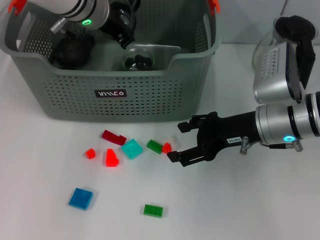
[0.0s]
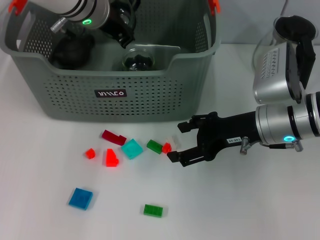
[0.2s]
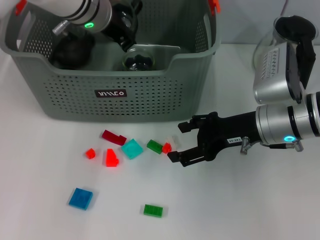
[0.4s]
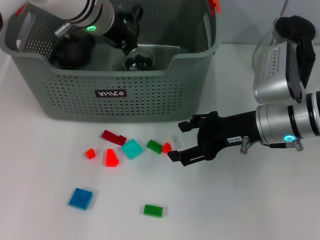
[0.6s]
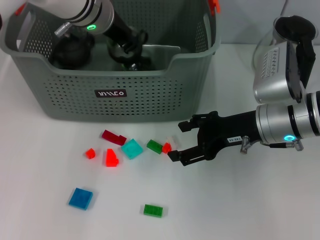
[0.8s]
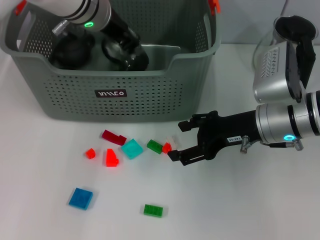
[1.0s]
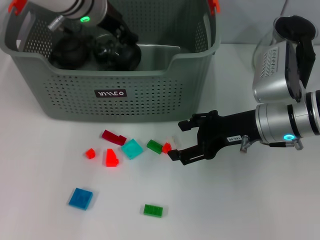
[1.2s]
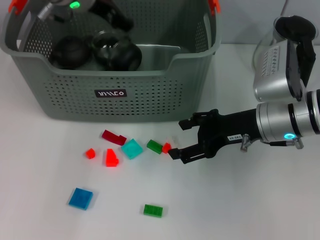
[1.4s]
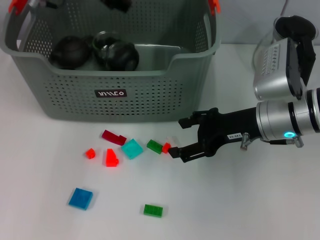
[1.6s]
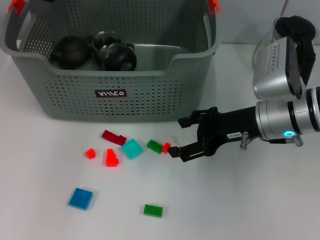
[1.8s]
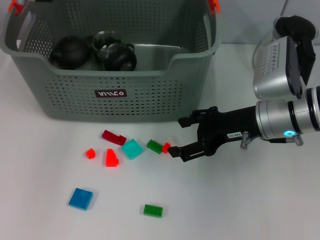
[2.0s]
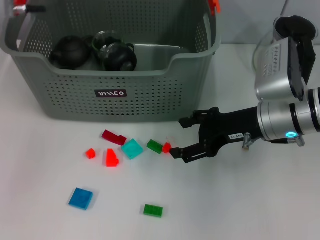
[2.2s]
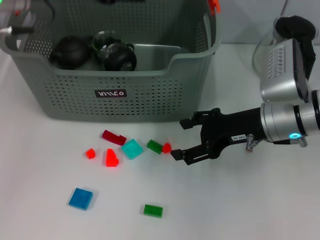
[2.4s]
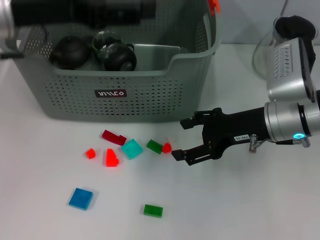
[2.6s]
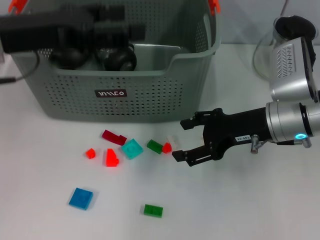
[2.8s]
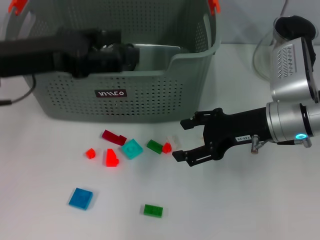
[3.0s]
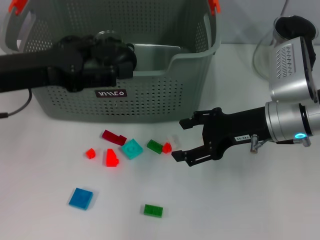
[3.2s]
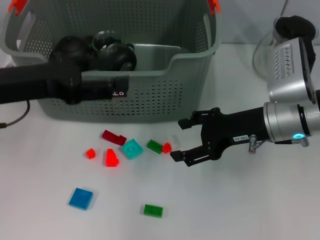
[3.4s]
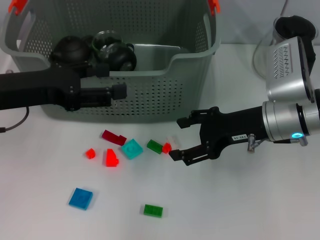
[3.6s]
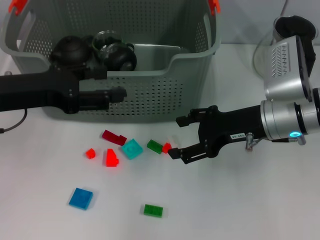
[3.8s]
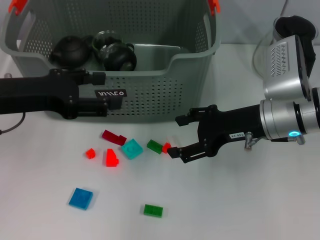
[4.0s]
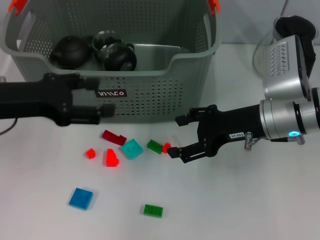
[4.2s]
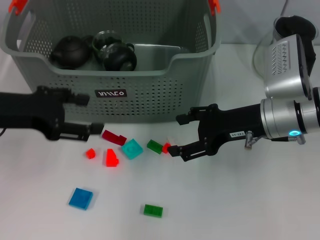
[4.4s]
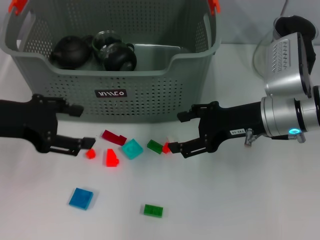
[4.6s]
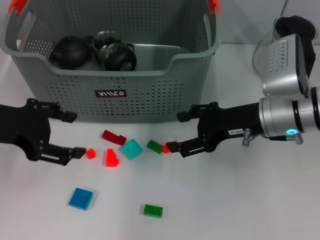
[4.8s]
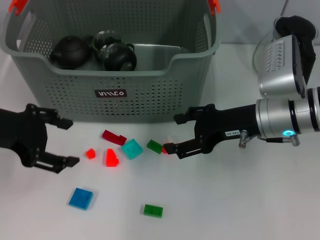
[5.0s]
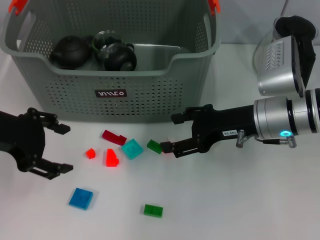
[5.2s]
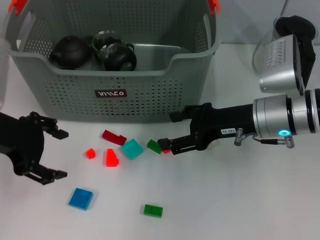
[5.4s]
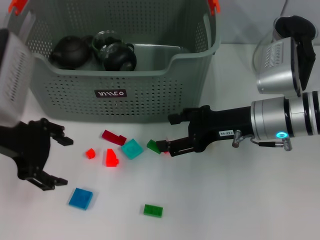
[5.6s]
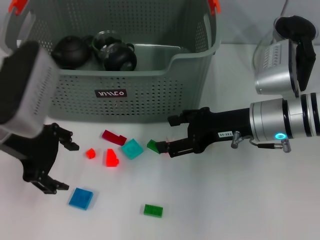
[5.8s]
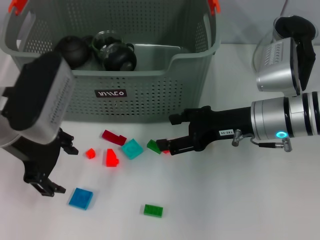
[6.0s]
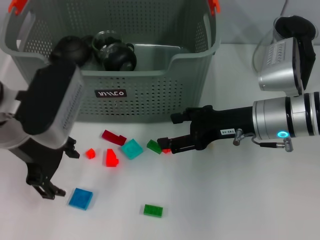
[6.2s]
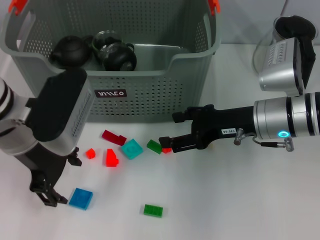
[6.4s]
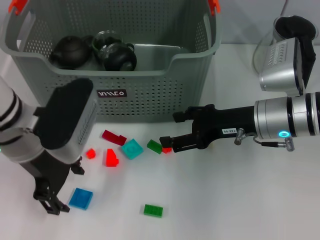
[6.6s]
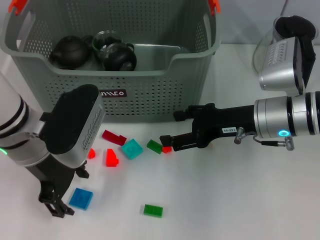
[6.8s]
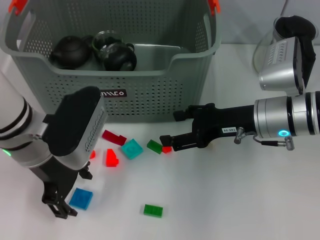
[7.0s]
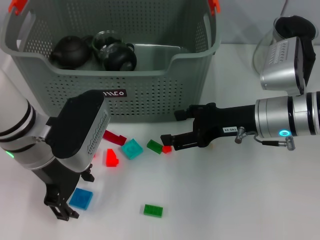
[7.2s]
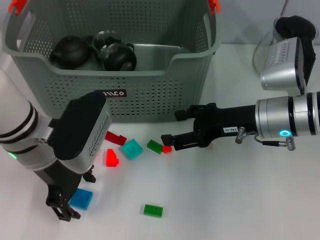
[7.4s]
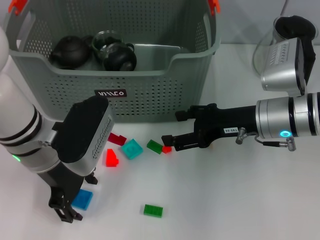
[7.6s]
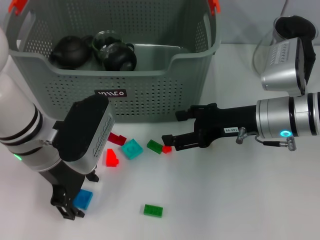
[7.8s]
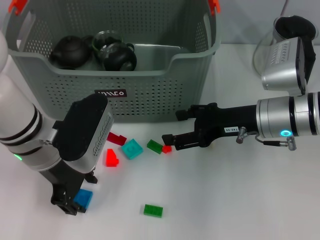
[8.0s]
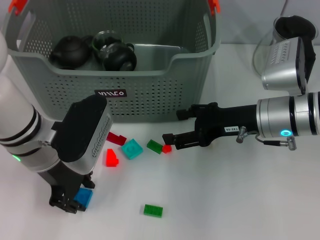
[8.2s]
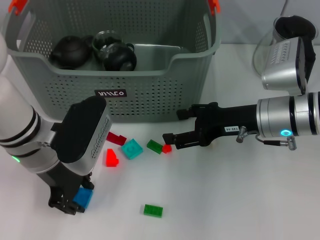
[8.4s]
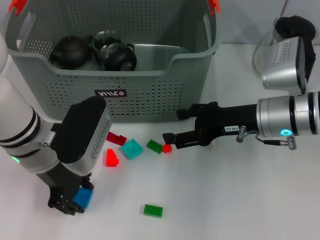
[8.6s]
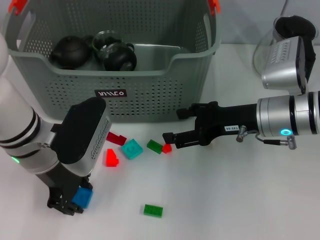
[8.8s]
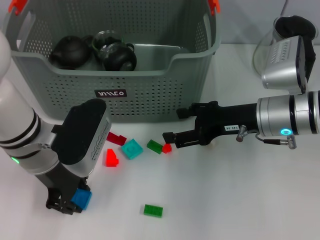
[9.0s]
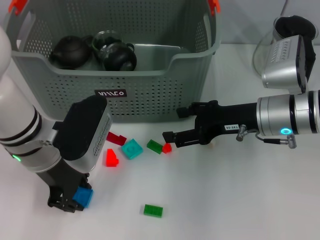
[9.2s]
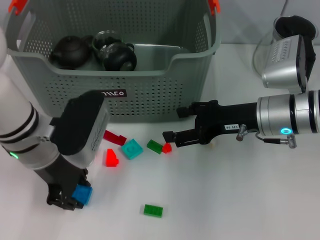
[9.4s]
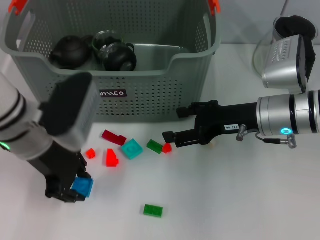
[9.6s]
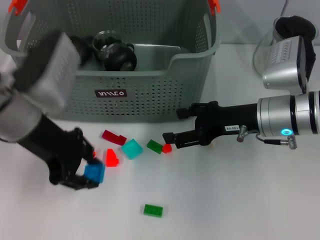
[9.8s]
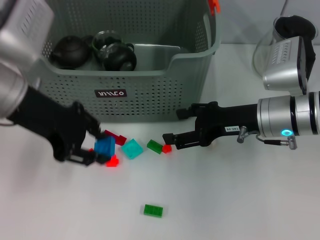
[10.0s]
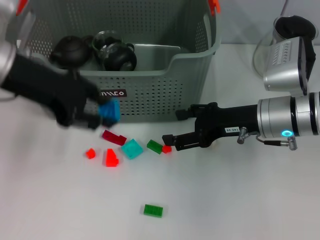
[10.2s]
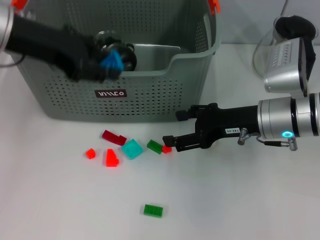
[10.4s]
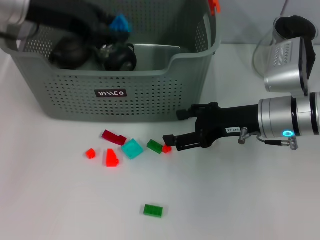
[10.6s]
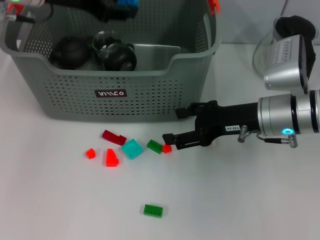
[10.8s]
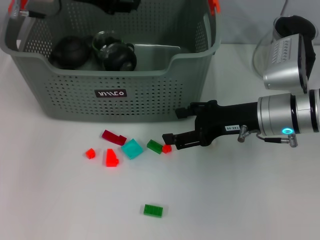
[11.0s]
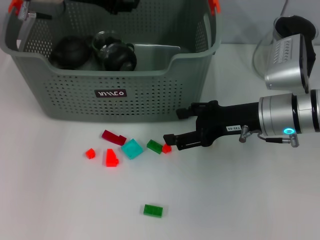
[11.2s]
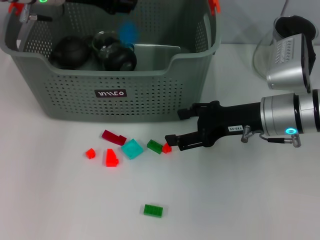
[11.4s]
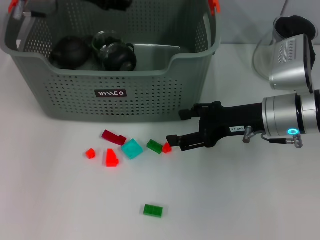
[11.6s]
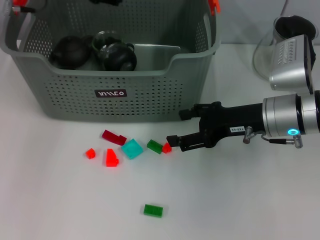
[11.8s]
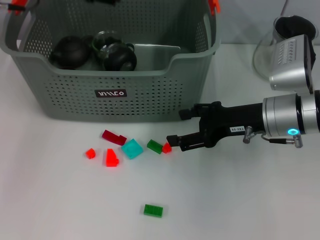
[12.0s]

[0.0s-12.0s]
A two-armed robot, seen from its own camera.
Task of the whole recording: pick up the teacup on the table and place it into the storage bin, pick up the block on the table and place it into the storage bin.
Step, 1.2s to 9.0s: Grasp the dark blue block with left gripper.
Step, 9.2s to 11.4s: Place the dark blue block in the storage box with left gripper.
0.0s to 1.6s: The left gripper ends up approximately 5 cm from where it was, and opens its fingers.
1.6s to 3.0s: The left gripper is displaced backward and to the left by some 15 cm.
3.0s to 4.4s: The left gripper shifts by roughly 5 cm.
4.4s to 6.0s: The left gripper travels to the right by approximately 5 cm.
6.0s to 7.6s: The left gripper goes roughly 5 cm downward.
7.6s to 9.0s: The left gripper closes its fingers.
9.0s to 10.4s: The left gripper travels upward and to the left by roughly 15 cm.
10.4s to 12.0s: The left gripper is displaced forward by roughly 5 cm, and opens its fingers.

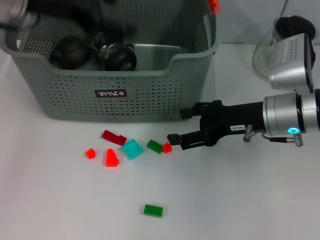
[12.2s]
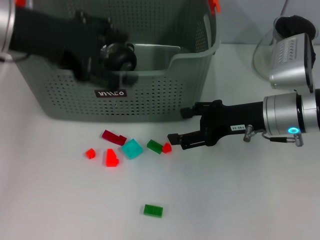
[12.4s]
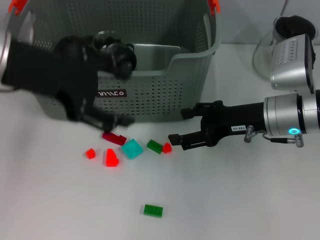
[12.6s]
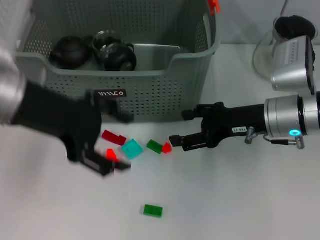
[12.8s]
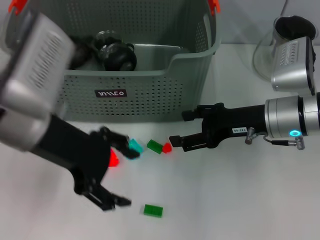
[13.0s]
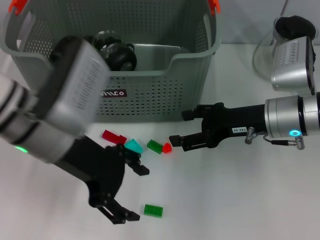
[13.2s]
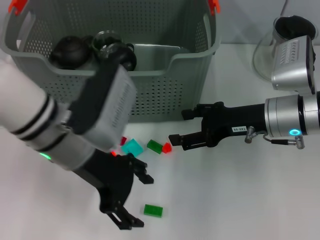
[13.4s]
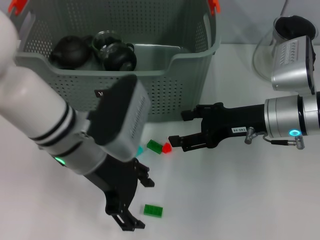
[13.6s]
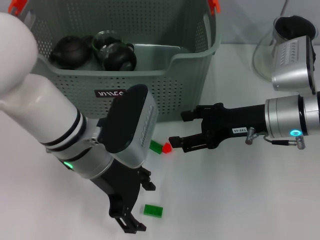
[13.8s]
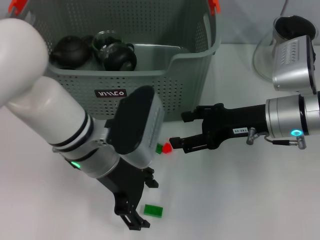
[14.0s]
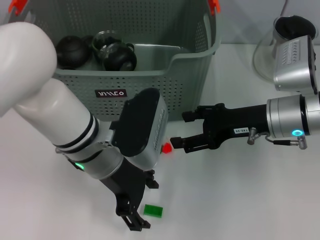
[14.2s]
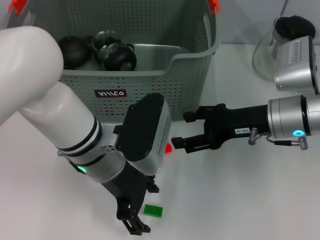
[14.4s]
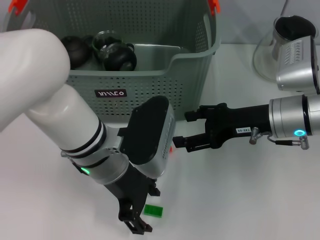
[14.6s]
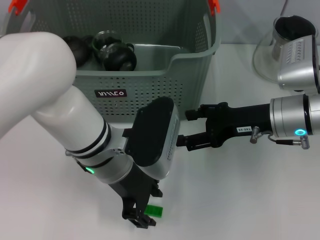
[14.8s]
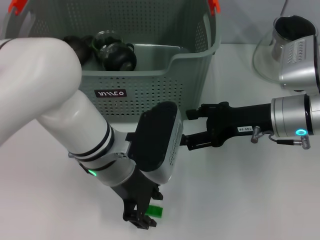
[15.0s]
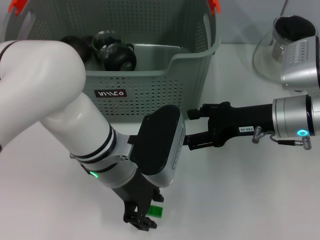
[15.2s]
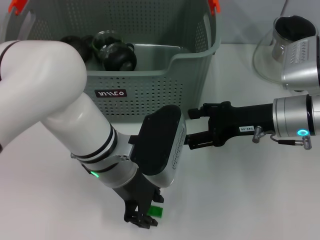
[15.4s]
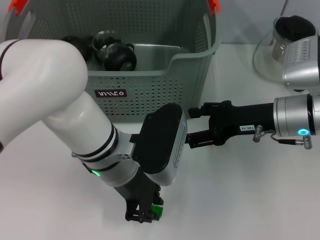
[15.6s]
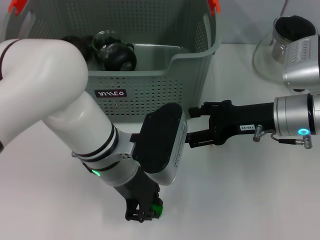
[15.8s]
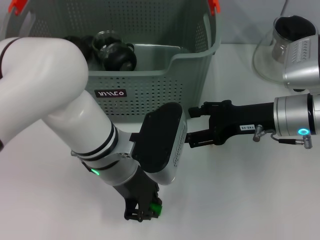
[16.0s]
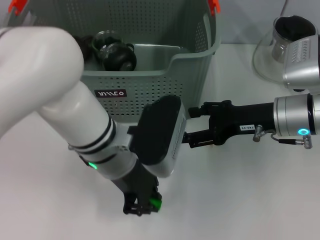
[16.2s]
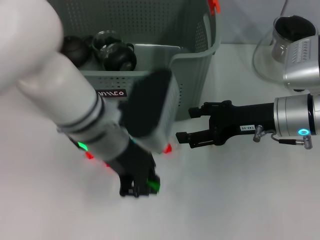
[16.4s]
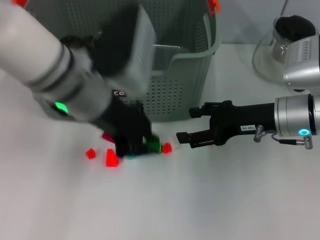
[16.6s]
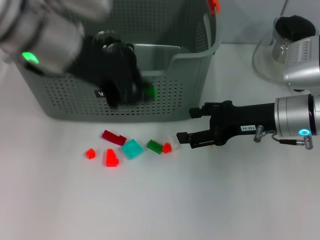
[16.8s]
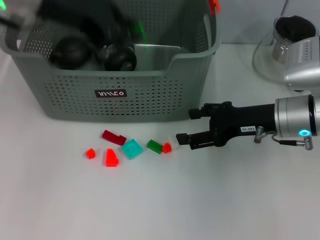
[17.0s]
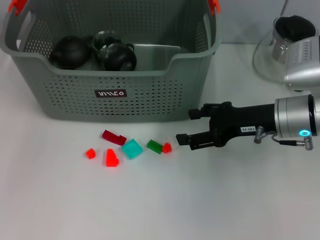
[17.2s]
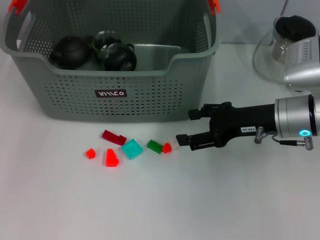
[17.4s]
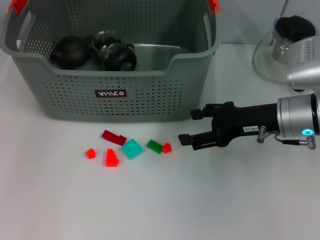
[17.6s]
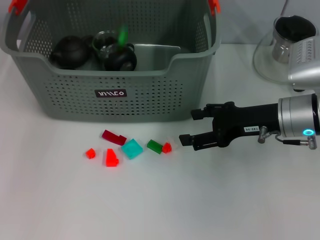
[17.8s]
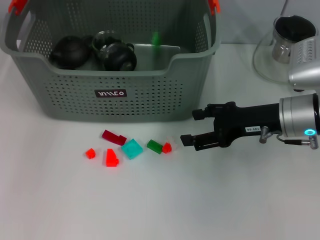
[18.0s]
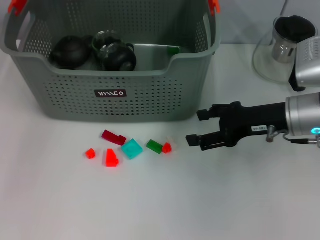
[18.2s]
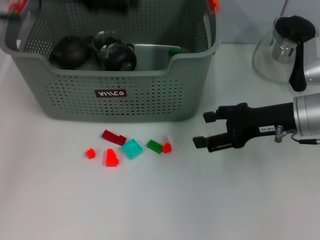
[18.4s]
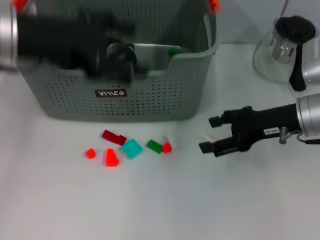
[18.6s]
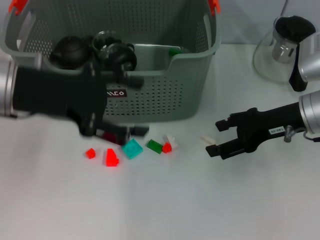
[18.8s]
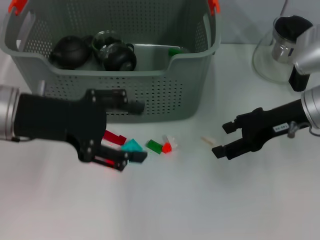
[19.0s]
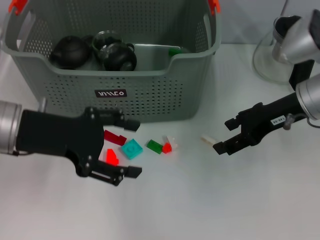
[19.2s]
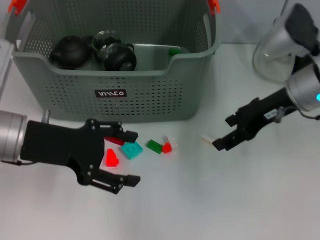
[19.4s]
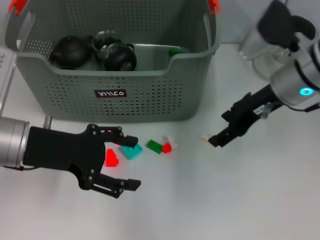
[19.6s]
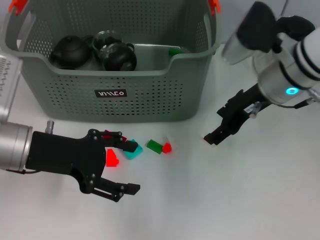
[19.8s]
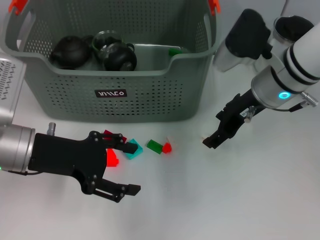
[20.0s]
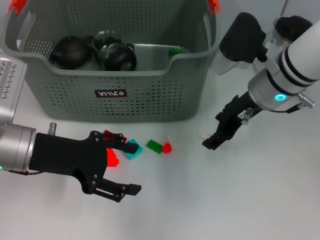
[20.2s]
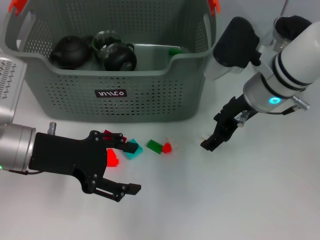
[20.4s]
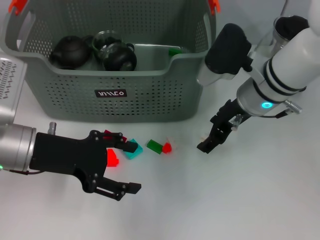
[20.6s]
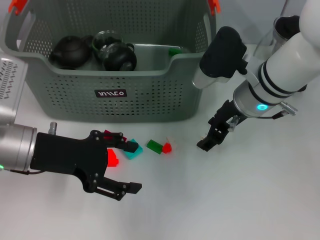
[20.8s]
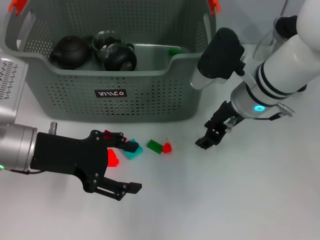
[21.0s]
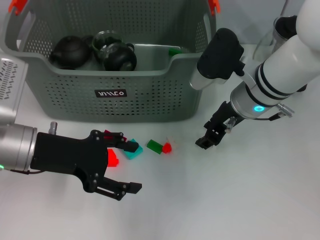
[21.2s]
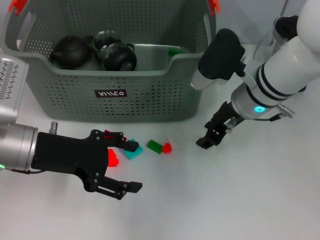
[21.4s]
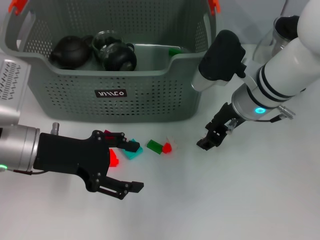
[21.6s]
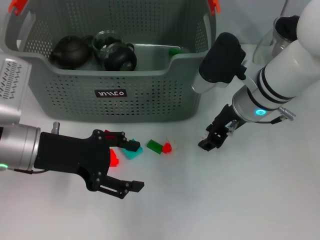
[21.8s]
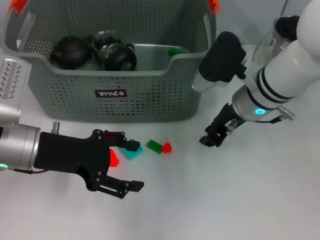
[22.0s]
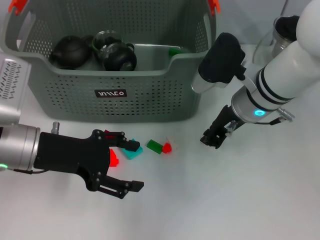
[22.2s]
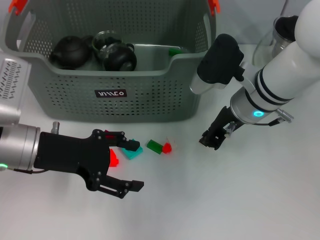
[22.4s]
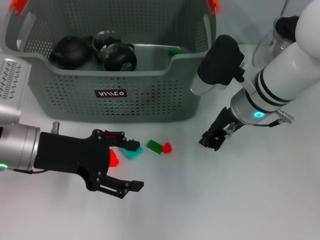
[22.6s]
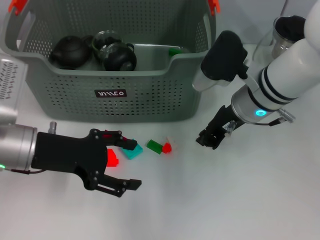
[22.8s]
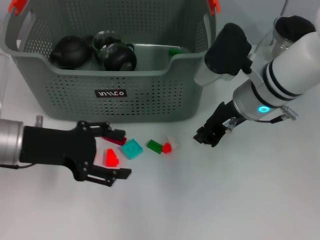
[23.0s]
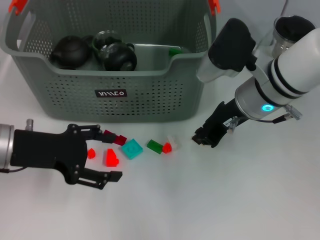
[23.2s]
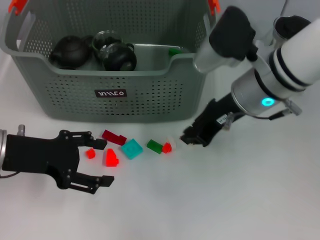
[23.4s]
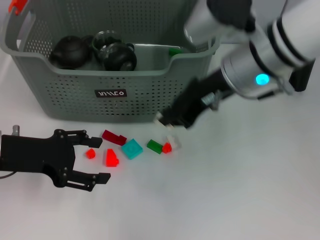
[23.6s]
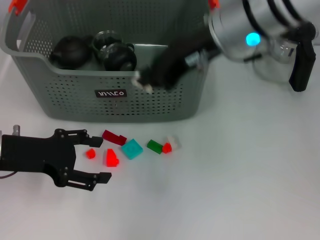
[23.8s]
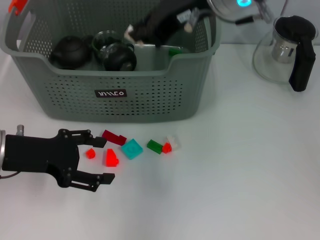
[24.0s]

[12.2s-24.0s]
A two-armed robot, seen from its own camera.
Task of the whole recording: pick up the teacup on the table and place it into the storage bin, pick up the block on the table and place it into the storage bin.
Step, 12.2s to 15.8s: Grasp the green block with left gripper.
Step, 16.0s to 17.8s: Place the green block in the storage box with left gripper.
Step, 18.0s to 22.4s: Grasp the white block with right gripper.
12.2s to 13.6s: The left gripper goes approximately 20 cm downward, to the right and backward.
13.6s to 15.2s: The left gripper changes place by some 5 cm, and closes.
15.2s to 16.6s: The left gripper goes about 10 cm upward, and closes its fingers.
16.6s to 18.2s: The left gripper travels forward, to the left and upward by about 15 cm, and opens its fingers.
18.2s to 19.6s: The left gripper is displaced backward and downward by approximately 20 cm; the right gripper is displaced upward by some 5 cm.
19.6s to 21.0s: The right gripper travels to the left by some 5 cm.
21.0s to 22.6s: The right gripper closes.
22.6s to 24.0s: The right gripper travels upward by some 15 cm.
